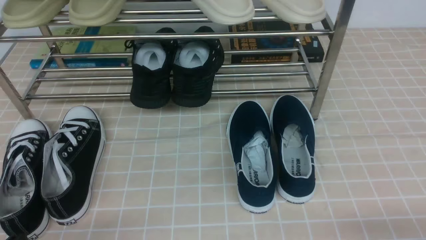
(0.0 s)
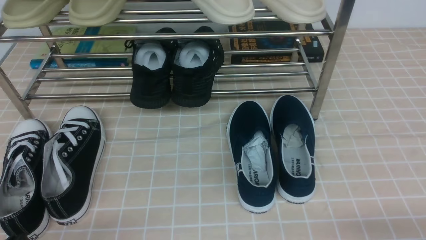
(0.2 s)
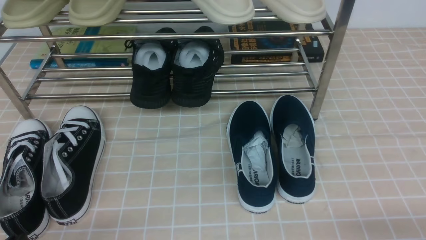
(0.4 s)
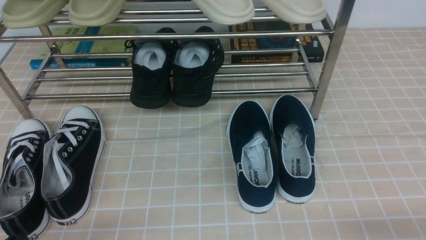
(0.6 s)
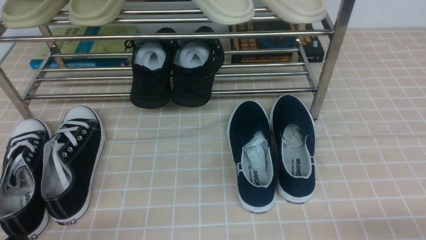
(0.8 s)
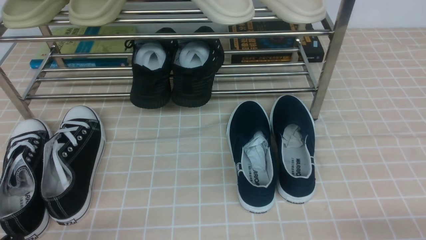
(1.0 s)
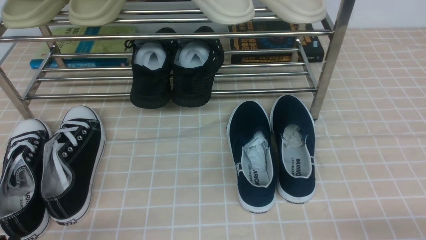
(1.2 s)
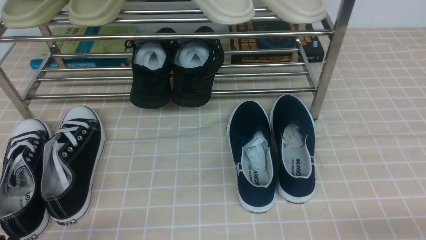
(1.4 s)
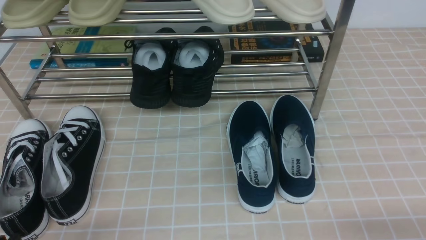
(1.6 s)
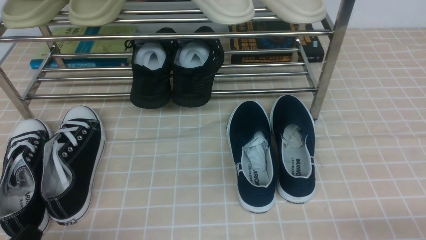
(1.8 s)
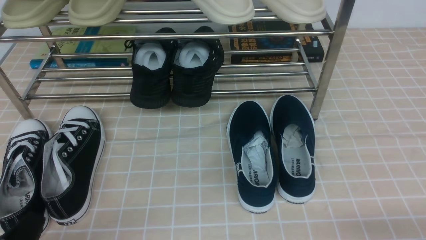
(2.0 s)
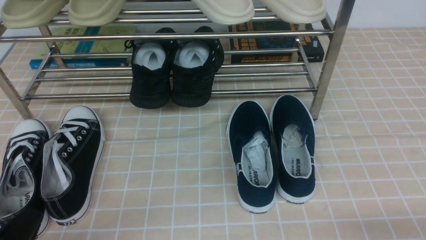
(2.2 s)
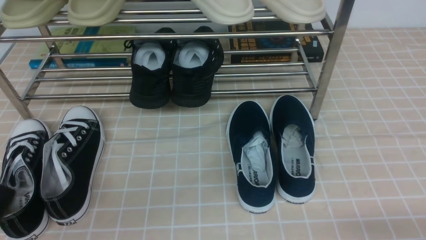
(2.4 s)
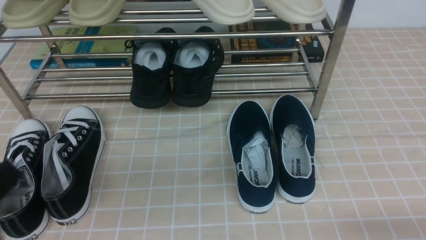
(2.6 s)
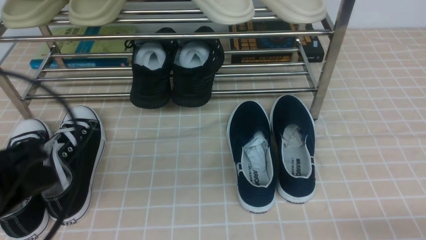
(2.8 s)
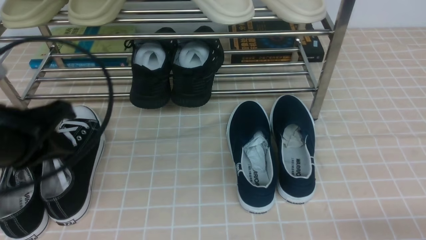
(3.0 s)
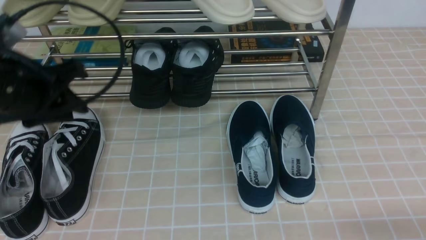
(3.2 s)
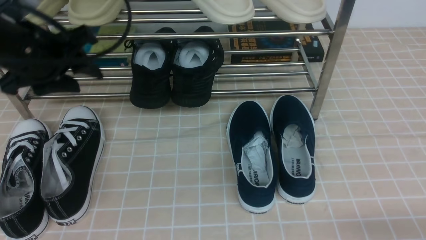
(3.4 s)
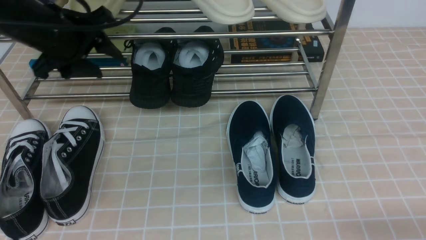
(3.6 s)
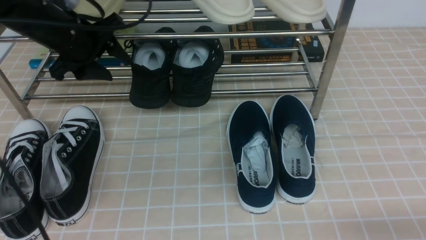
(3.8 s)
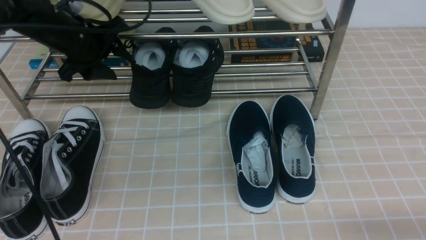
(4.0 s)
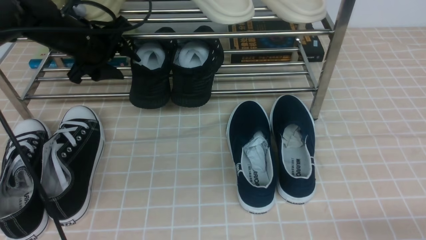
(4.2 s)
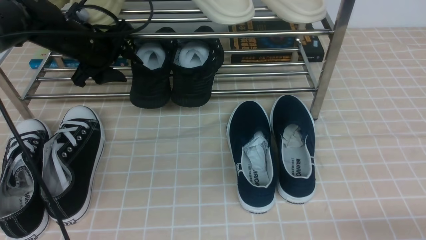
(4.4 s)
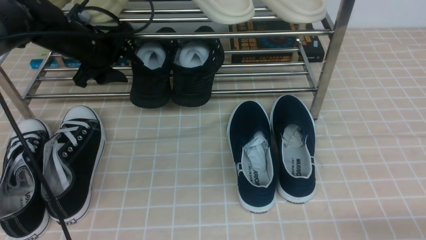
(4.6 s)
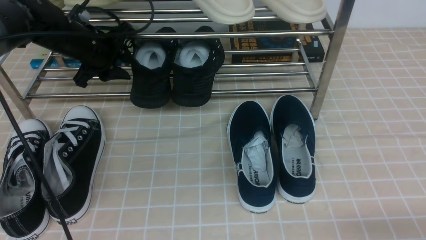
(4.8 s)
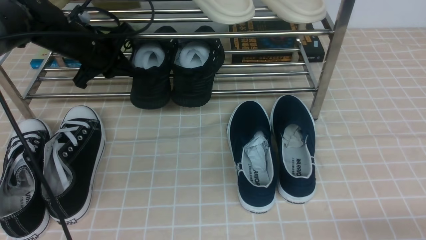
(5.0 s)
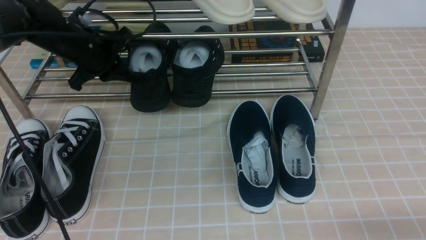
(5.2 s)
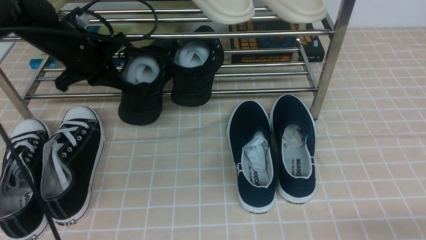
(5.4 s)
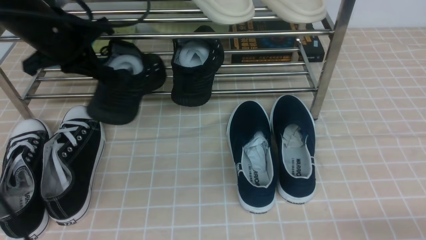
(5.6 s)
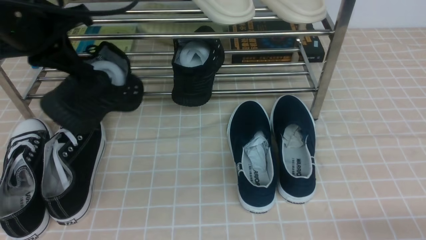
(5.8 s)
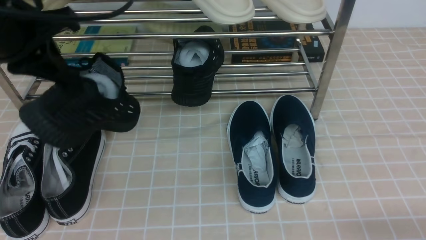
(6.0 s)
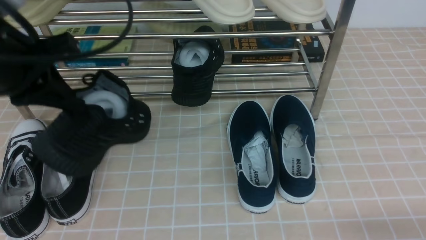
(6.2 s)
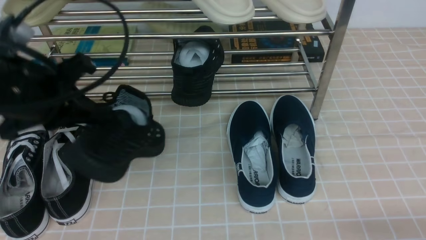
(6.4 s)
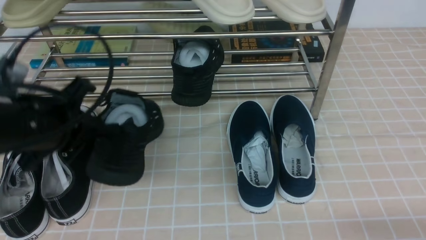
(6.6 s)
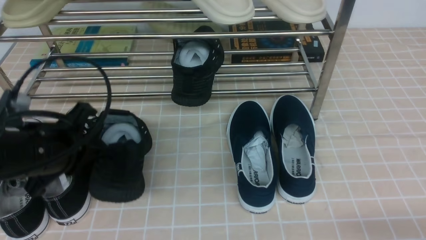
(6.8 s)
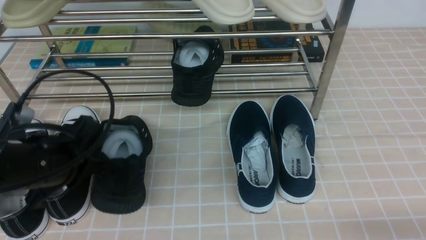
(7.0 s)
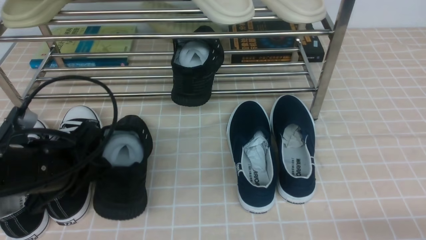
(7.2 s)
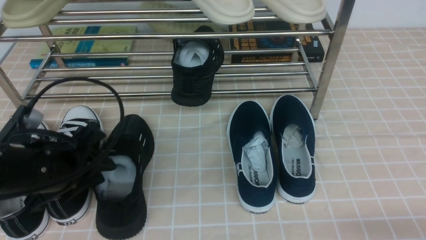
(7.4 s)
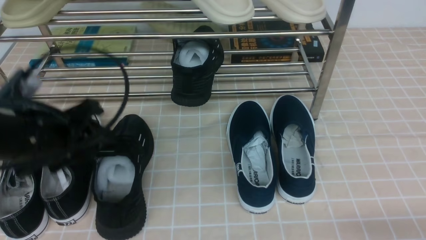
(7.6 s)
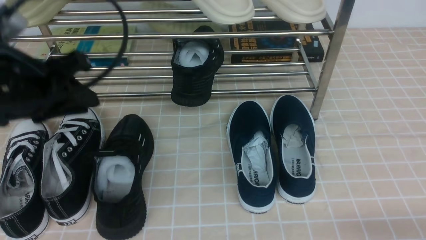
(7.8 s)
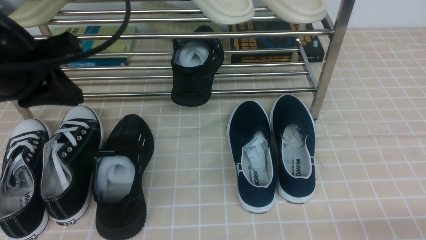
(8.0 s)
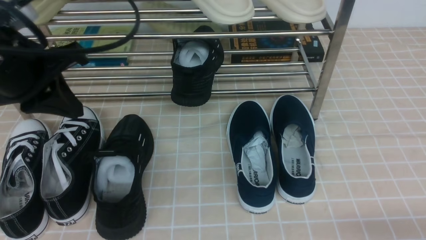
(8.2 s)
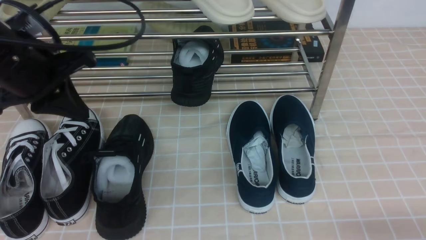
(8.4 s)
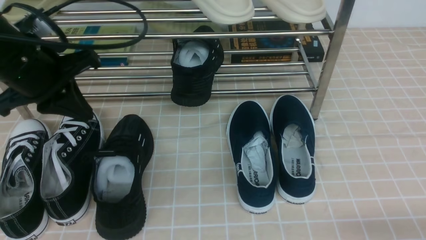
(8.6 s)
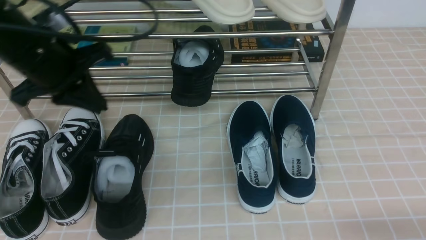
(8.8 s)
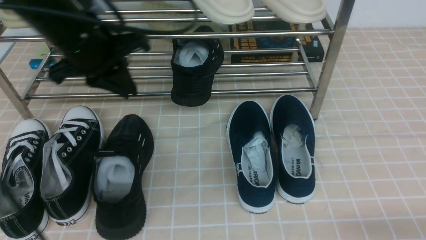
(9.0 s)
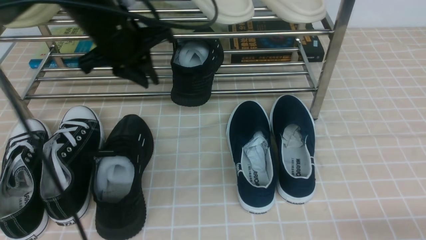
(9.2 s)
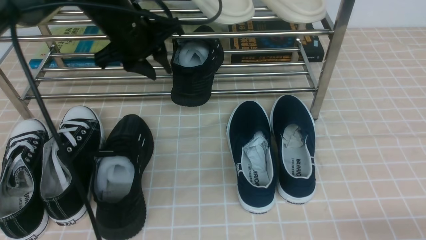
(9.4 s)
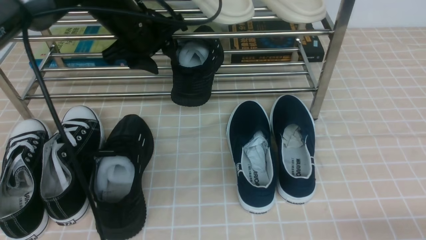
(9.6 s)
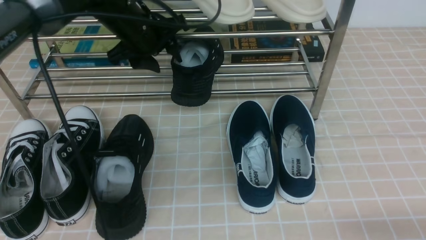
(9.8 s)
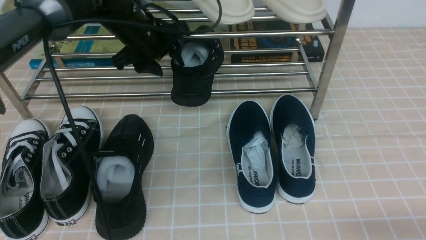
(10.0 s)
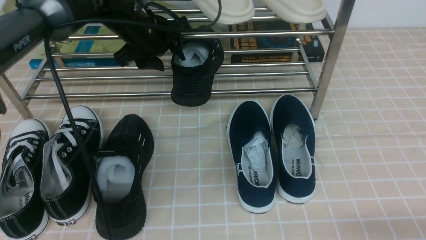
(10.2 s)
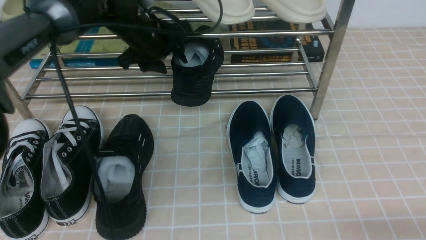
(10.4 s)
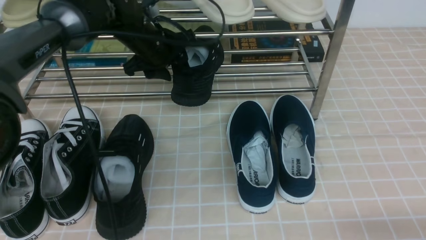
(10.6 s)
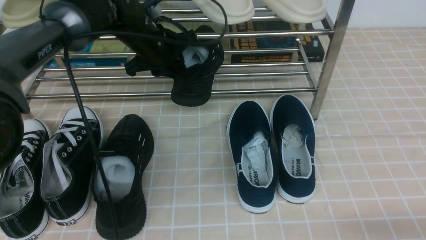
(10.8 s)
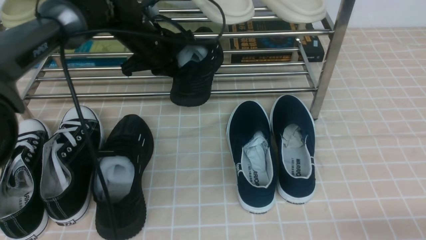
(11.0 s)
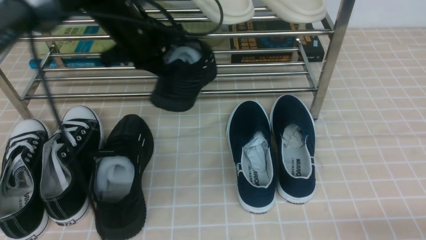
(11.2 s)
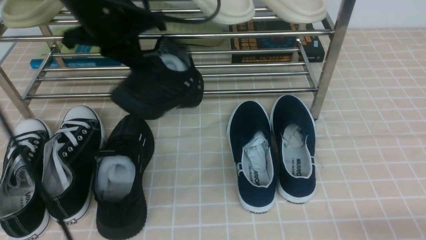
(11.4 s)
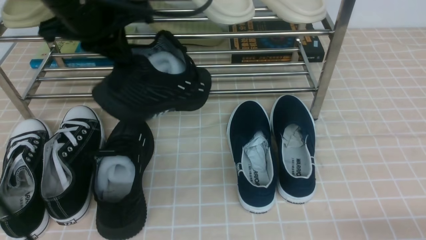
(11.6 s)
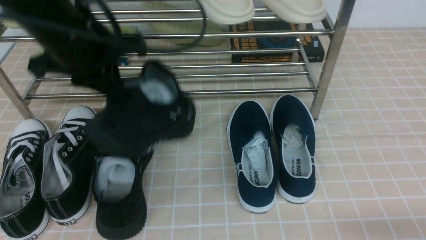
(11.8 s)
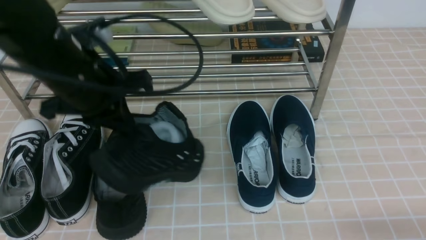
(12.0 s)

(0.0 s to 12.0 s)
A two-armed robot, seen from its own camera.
Step, 0.0 s - 5.0 s: use the left arm to clamp a shoe in the middle of the shoe rack.
Step, 5.2 s - 7.4 s: Use your left arm to remove the clamped shoe from the shoe rack and put it down.
Step, 7.6 s - 10.6 s: use the left arm to clamp a shoe in the middle of the shoe rack.
1.6 s - 3.0 s: The left gripper shifts roughly 20 cm upward and forward.
3.0 s - 4.4 s: The left gripper goes approximately 25 cm forward, and opens up.
4.4 s - 6.0 s: The left gripper heads backward and upward, covering approximately 20 cm, and closes up.
6.0 s - 7.6 s: The left gripper travels downward and backward by about 10 cm, and opens its fingers.
7.6 s - 9.0 s: The left gripper heads forward, to the right and upward, covering roughly 15 cm.
9.0 s - 10.4 s: The left gripper travels forward, downward and to the right by some 15 cm, and opens up.
10.4 s - 12.0 s: The left gripper is displaced backward by some 15 cm, and closes up.

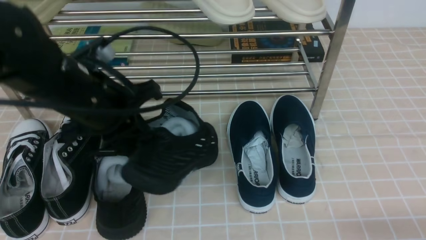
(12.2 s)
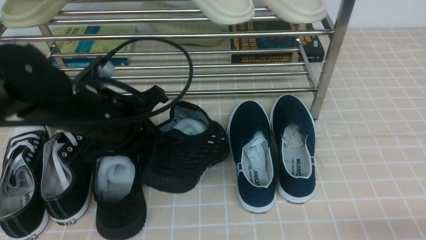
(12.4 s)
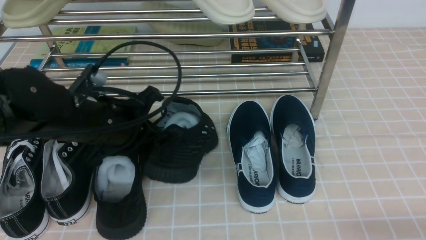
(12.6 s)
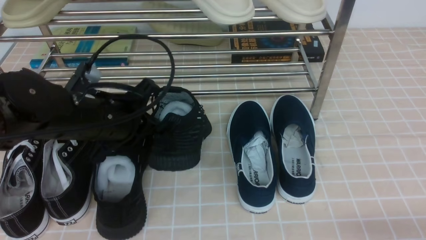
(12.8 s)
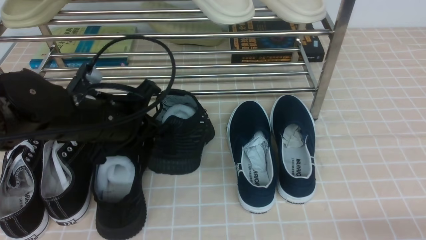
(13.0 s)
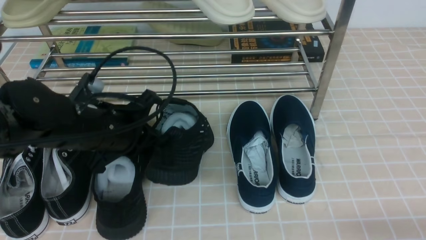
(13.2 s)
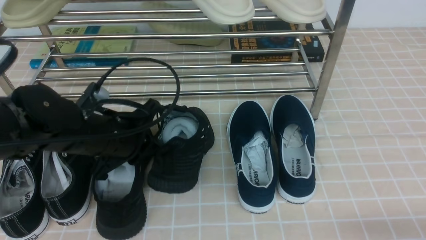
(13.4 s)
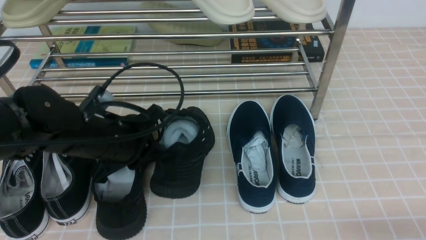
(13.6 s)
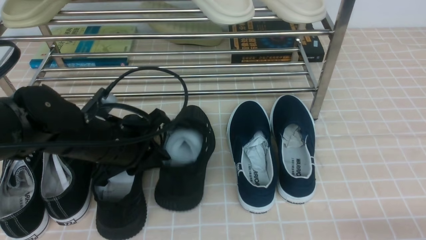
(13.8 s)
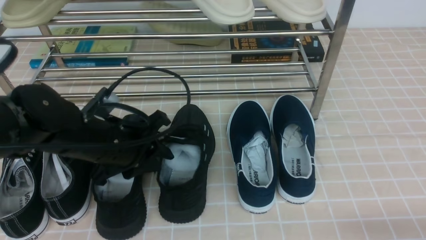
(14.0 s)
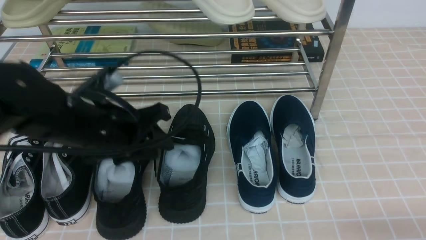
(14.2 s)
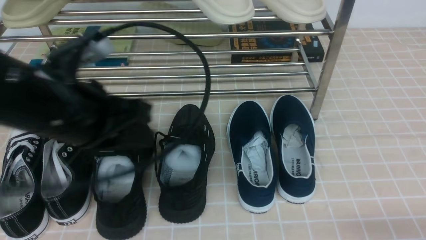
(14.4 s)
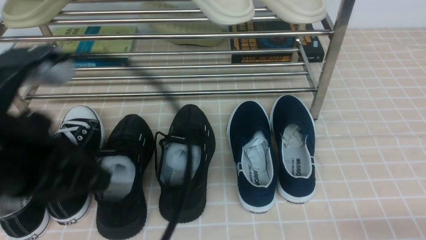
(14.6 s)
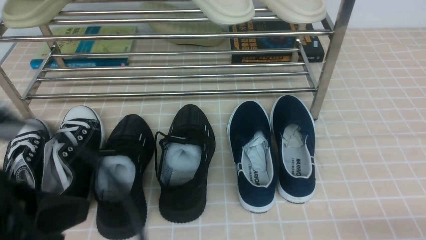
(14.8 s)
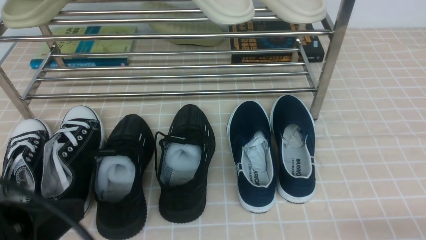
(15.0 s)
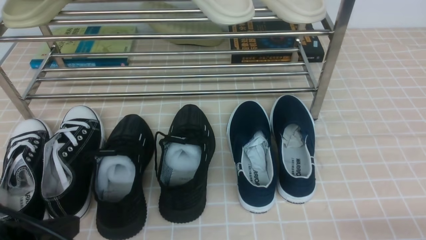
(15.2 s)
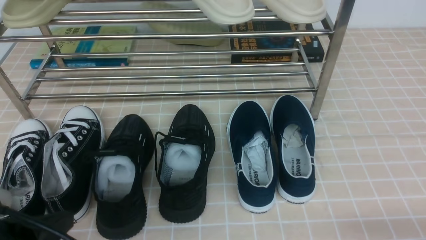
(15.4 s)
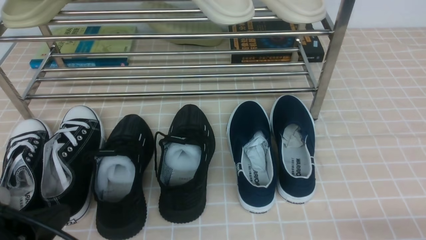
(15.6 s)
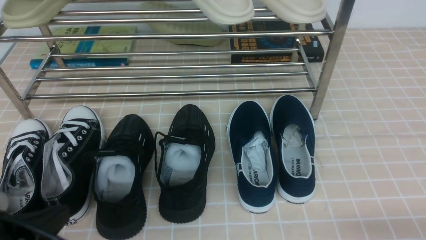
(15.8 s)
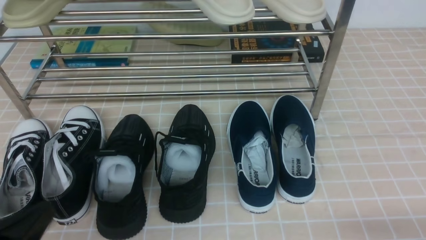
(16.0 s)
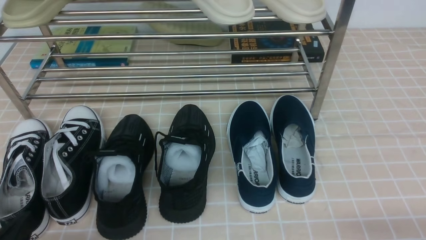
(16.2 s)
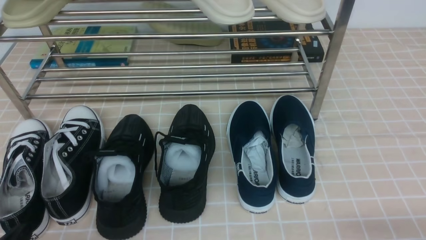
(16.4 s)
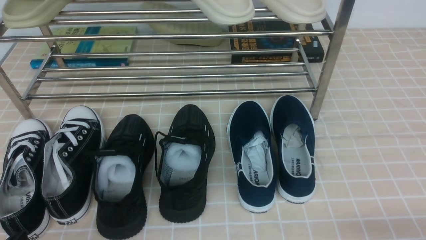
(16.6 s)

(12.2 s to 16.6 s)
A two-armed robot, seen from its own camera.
Step, 12.2 s - 14.2 s: Use your left arm to remove the clamped shoe from the shoe rack and put it down.
12.2 s - 13.6 s: The left gripper shifts some 5 cm downward.
13.6 s - 15.2 s: The left gripper goes about 20 cm backward, and opens and closes again.
15.2 s - 16.6 s: The left gripper heads downward, covering about 10 cm.
